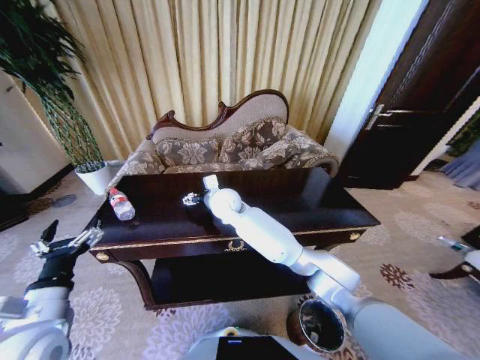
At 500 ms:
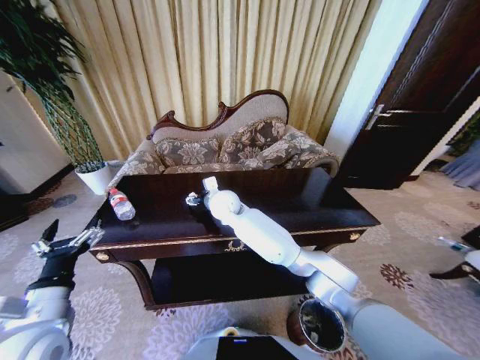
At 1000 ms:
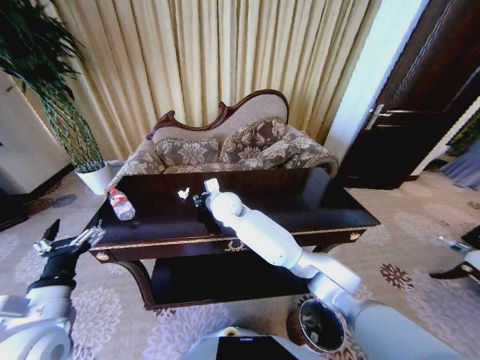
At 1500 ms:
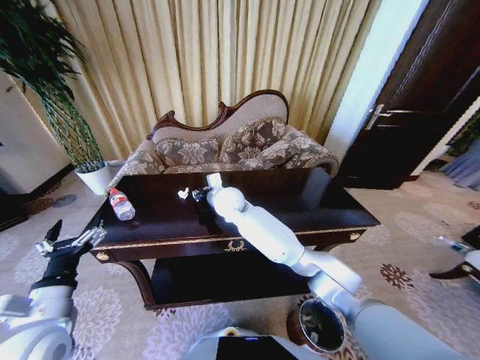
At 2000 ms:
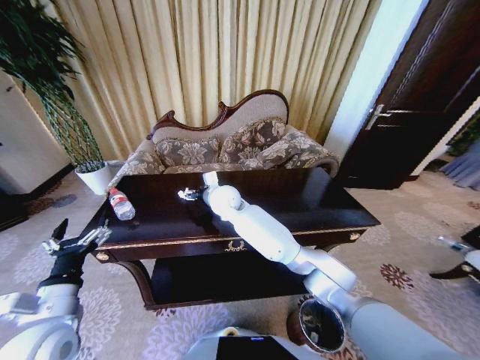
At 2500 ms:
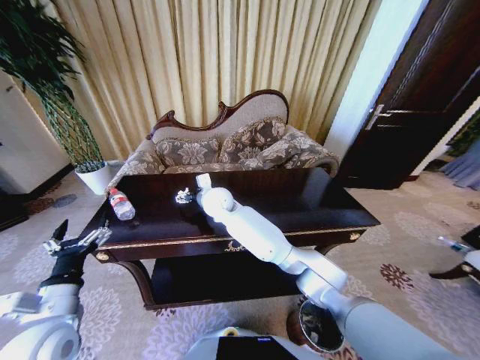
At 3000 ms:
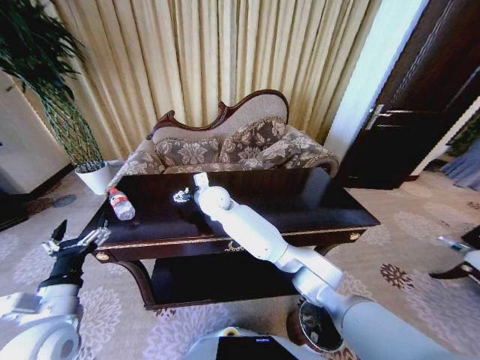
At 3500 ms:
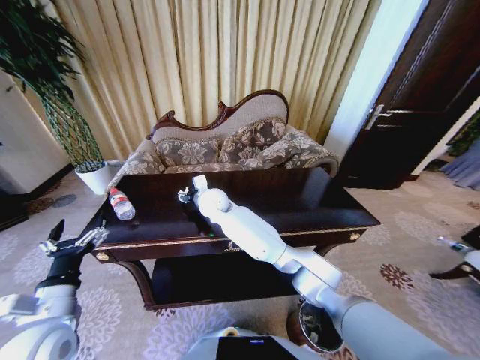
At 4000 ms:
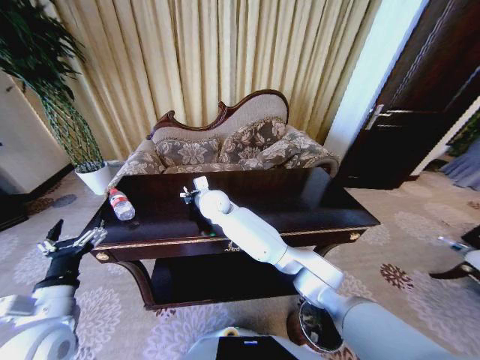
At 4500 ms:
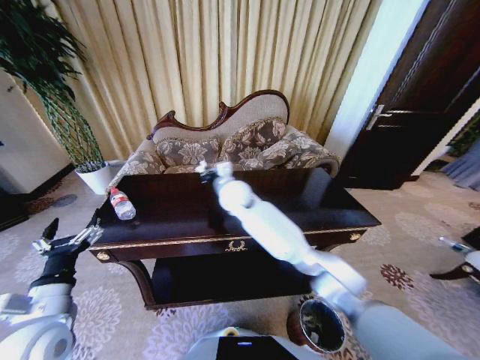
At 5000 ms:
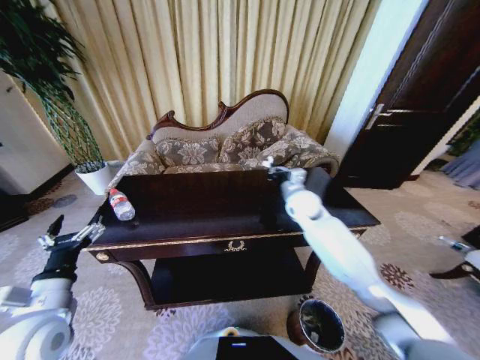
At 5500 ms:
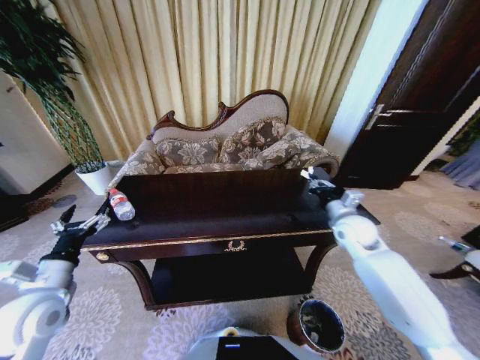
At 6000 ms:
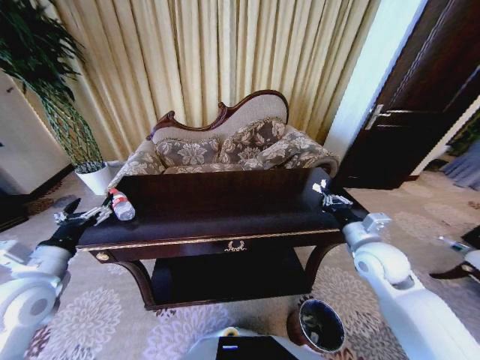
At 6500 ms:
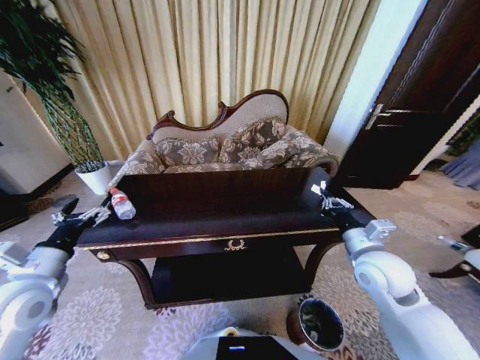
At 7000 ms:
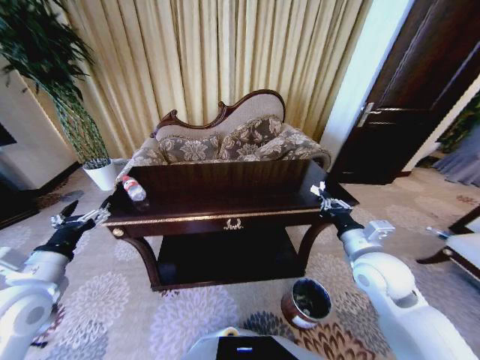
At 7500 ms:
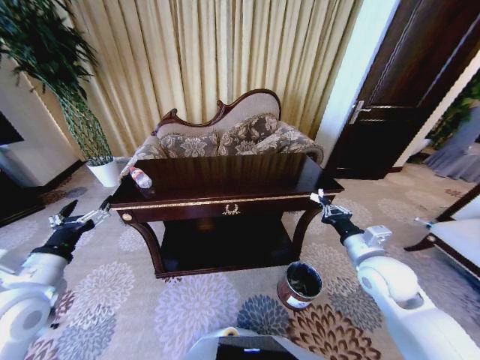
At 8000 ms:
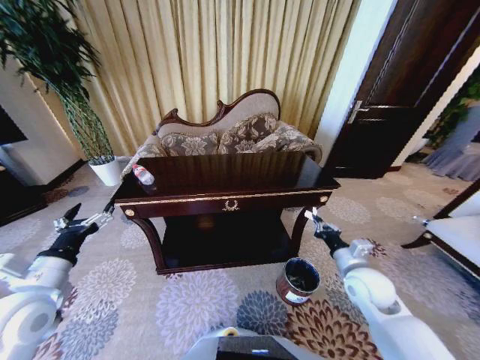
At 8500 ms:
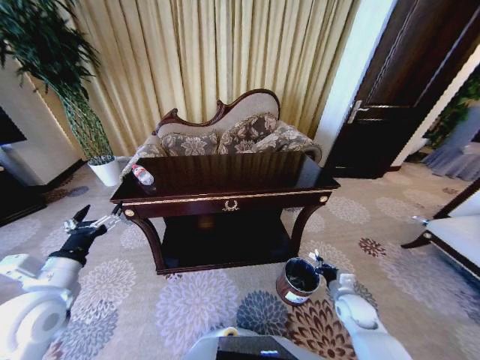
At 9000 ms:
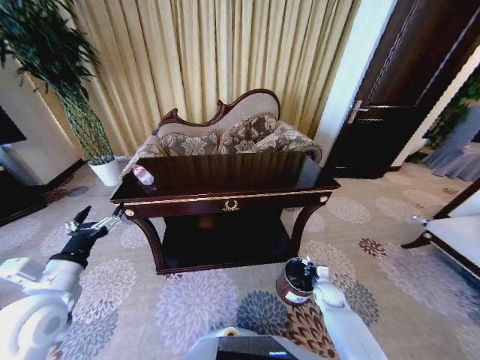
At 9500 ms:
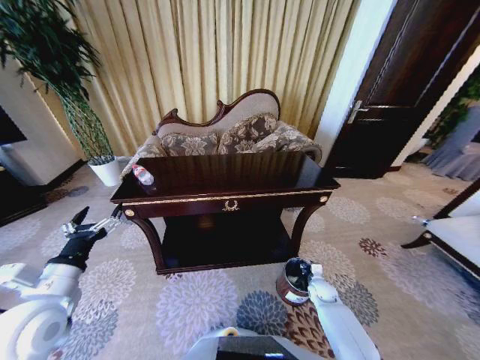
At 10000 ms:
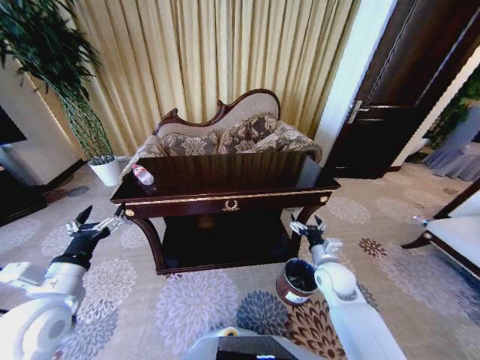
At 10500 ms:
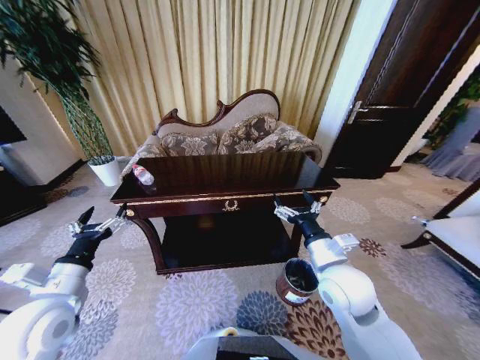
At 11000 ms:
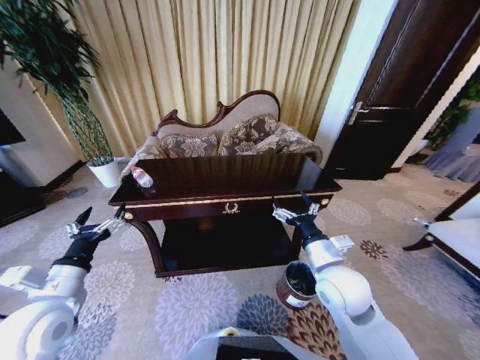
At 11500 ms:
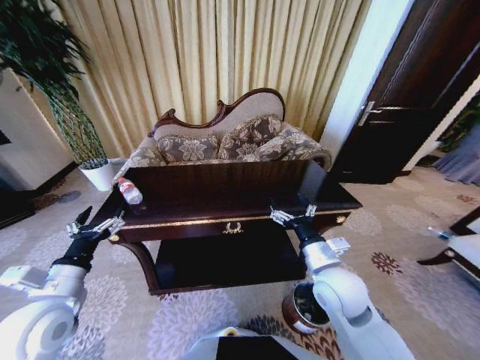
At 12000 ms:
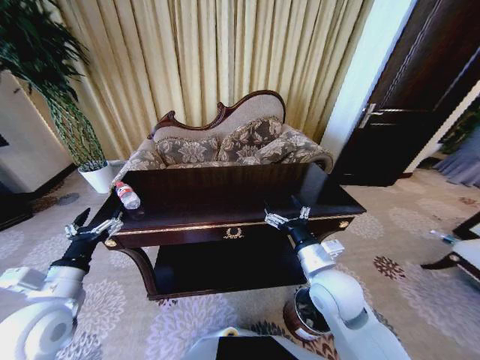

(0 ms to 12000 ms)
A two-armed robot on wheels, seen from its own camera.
Task of the whole recording: Move to the front of the table and place the trash on the table into the trash bin.
0 ms - 2000 ms: The right gripper closes and opens again.
2000 ms - 4000 ms: The right gripper closes up.
4000 ms - 6000 ms: The right gripper moves to the right and backward, about 50 cm, while the left gripper heads forward and to the left, covering about 10 cm.
6000 ms - 8000 ms: The right gripper shifts roughly 10 cm downward.
8000 ms - 10000 ms: The right gripper travels downward and back again, approximately 25 cm each way, and opens.
10000 ms - 12000 ms: The right gripper goes approximately 20 cm upward, to the left and backward.

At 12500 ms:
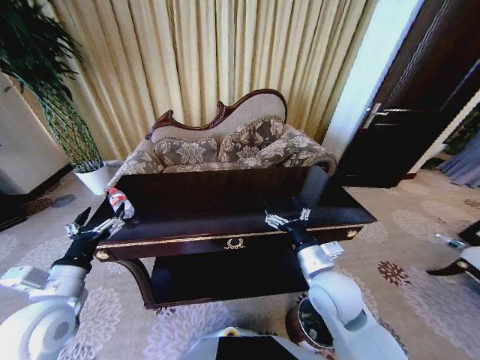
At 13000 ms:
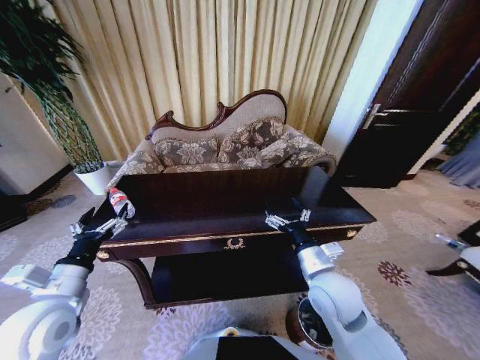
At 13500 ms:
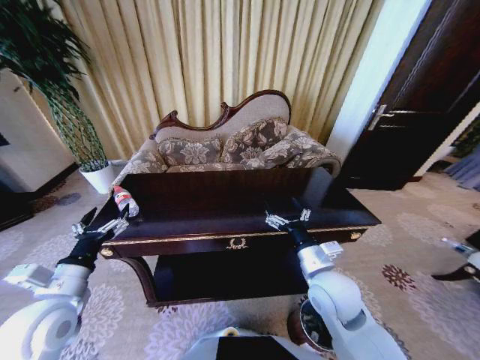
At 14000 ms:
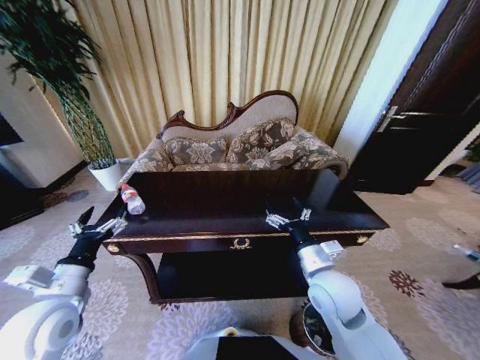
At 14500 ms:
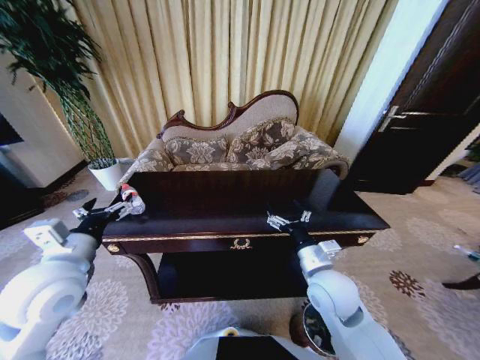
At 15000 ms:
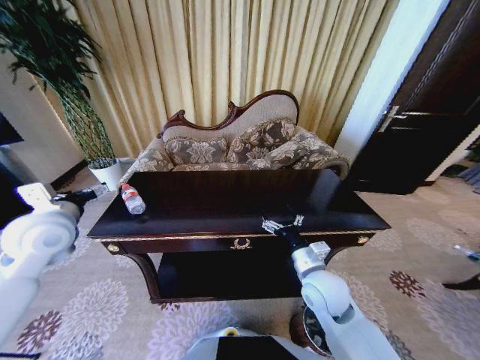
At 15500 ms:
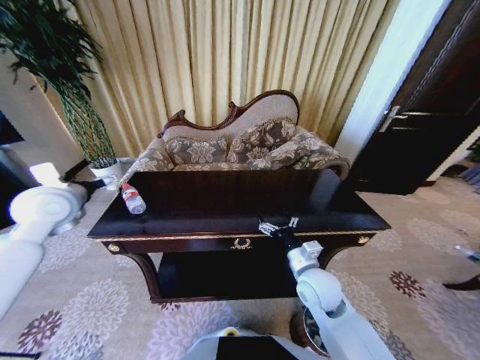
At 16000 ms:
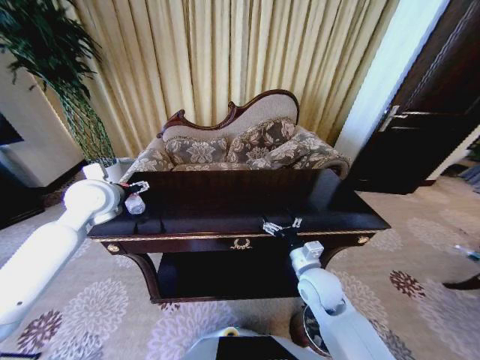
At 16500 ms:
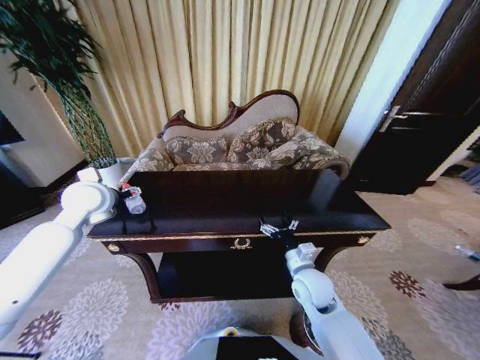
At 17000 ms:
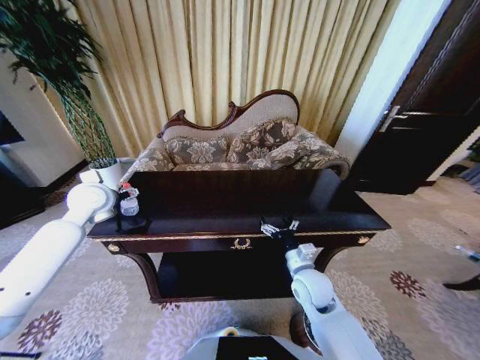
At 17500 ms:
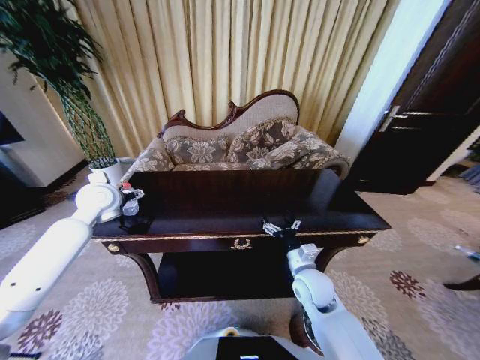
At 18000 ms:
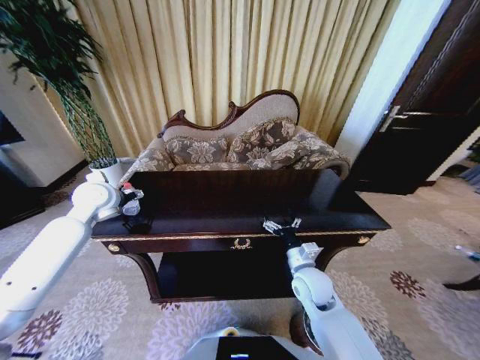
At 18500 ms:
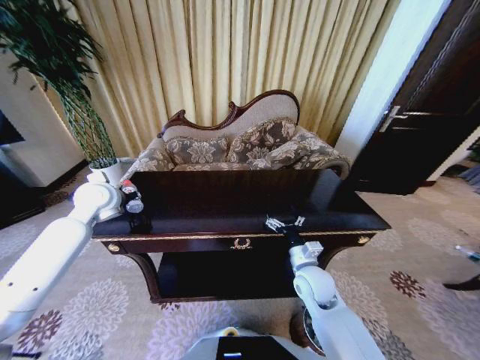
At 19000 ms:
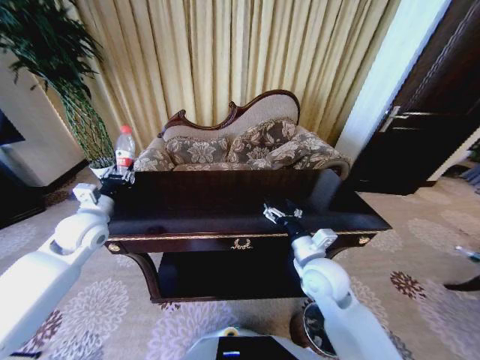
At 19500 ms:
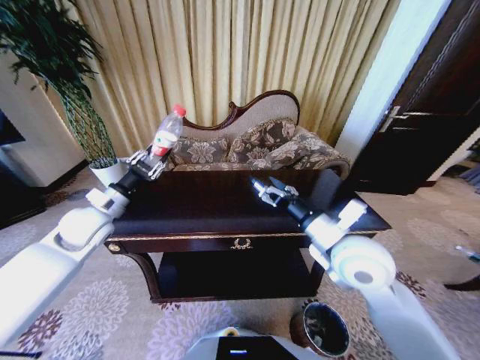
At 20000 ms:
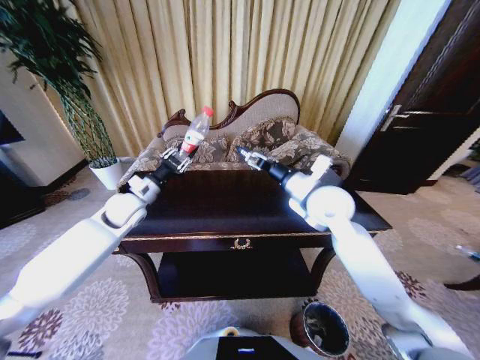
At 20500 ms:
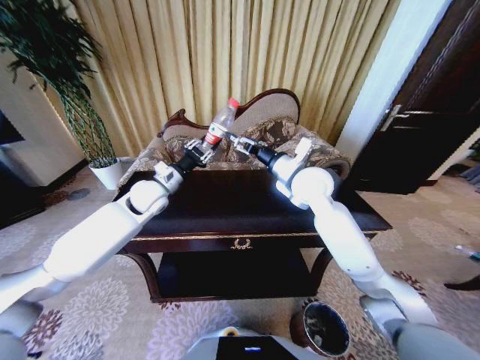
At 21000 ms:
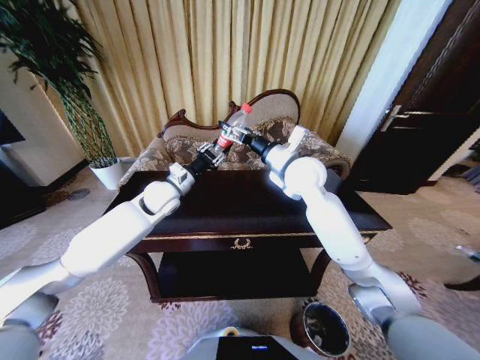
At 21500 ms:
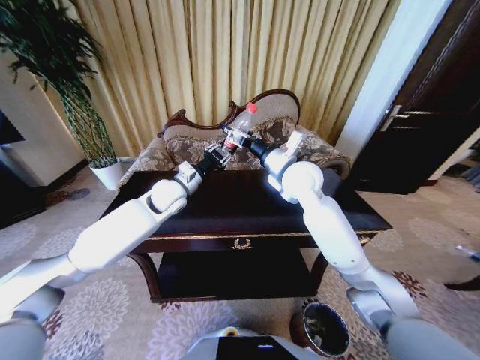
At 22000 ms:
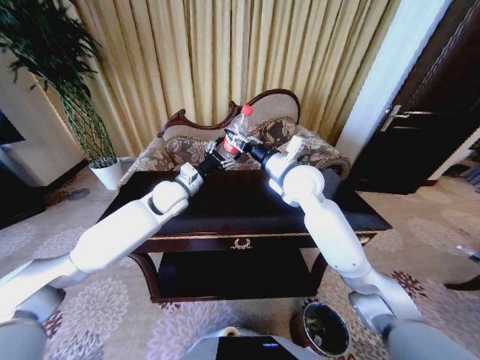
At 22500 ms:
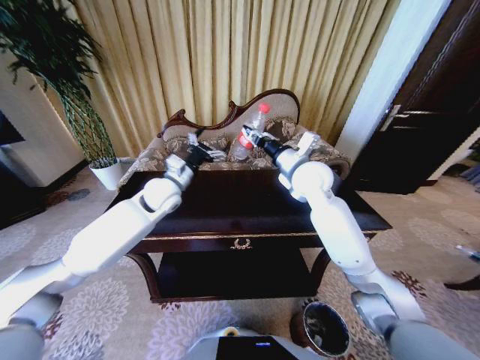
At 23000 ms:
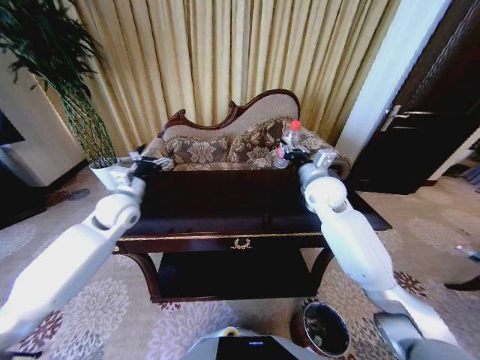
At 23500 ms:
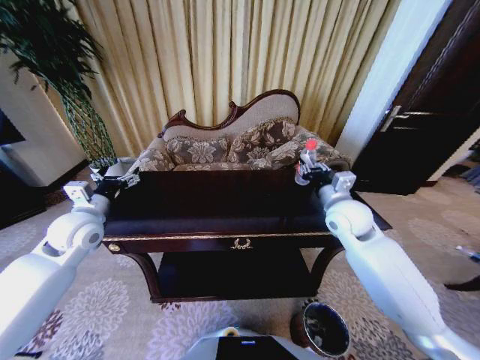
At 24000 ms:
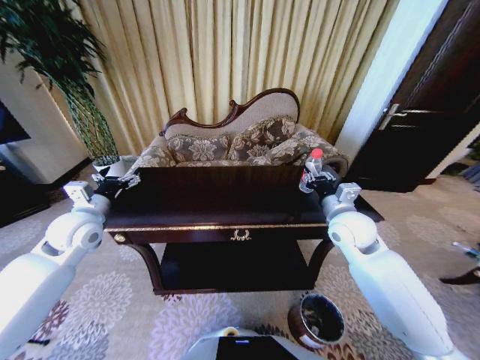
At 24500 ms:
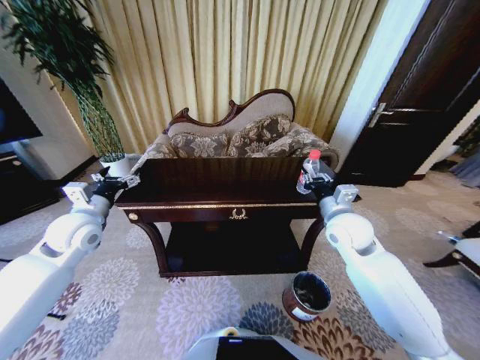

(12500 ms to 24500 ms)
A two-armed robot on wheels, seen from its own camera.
Task of the whole recording: Move to the front of the table and place the trash on the table into the trash bin.
12500 ms - 14500 ms: The left gripper shifts about 5 cm upward.
14500 ms - 16500 ms: The right gripper moves downward, approximately 5 cm; the left gripper goes some 20 cm forward.
16500 ms - 18500 ms: The left gripper closes.
18500 ms - 20500 ms: The right gripper travels upward and forward by roughly 30 cm; the left gripper shifts roughly 10 cm to the right.
20500 ms - 22500 ms: The right gripper closes its fingers. Meanwhile the left gripper opens its fingers.
22500 ms - 24500 ms: The left gripper shifts some 20 cm to the left and backward, while the right gripper moves backward, downward and to the right, about 15 cm.

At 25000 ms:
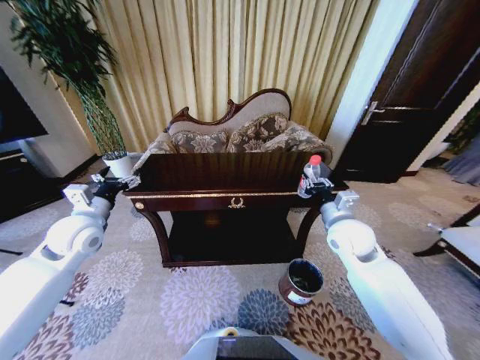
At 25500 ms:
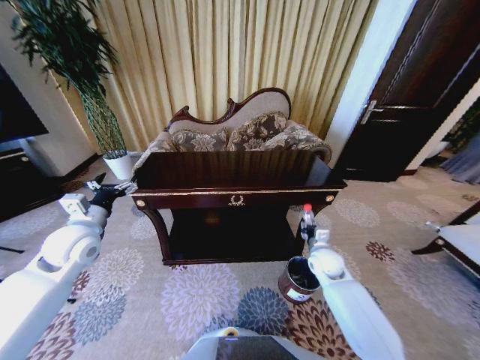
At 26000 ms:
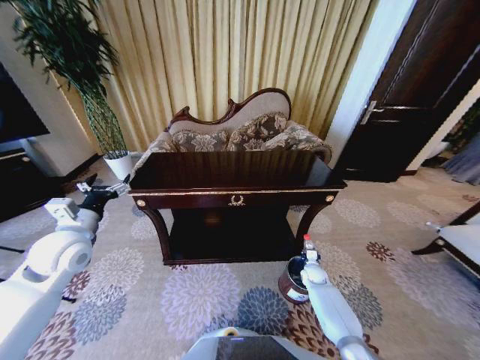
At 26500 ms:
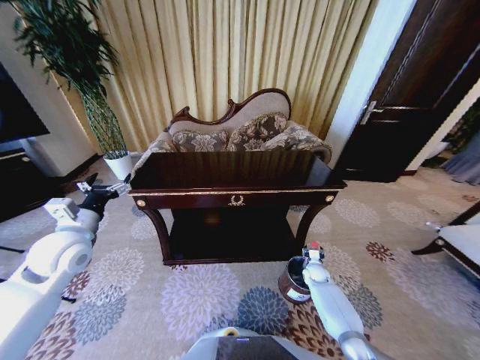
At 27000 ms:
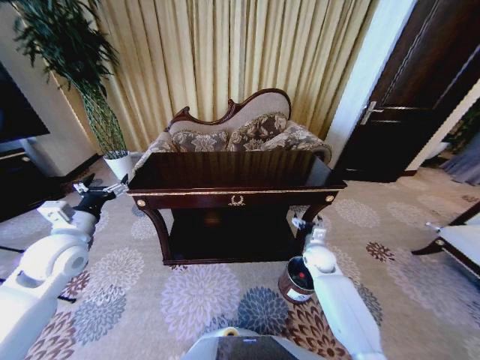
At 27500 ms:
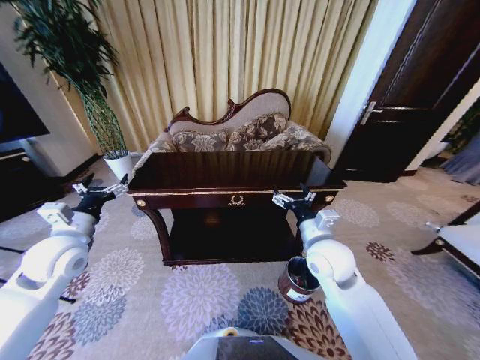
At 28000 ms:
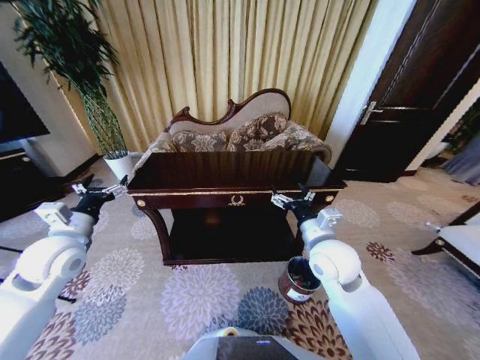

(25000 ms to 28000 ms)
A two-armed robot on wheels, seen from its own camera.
Task of the whole recording: Move to the front of the table and place the trash on the table into the trash bin.
25000 ms - 26500 ms: The right gripper shifts about 35 cm downward, and opens up.
26500 ms - 28000 ms: The right gripper travels upward and to the left by about 40 cm.
